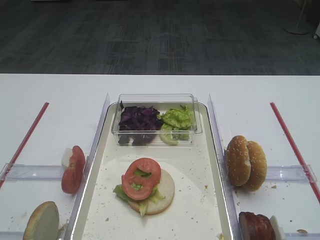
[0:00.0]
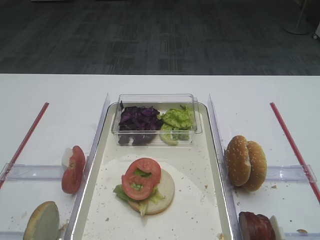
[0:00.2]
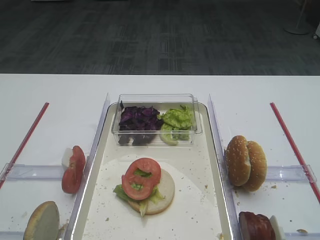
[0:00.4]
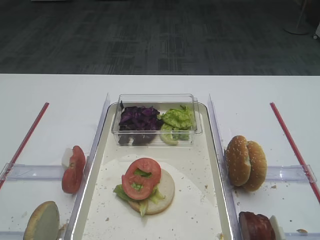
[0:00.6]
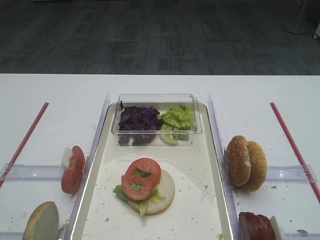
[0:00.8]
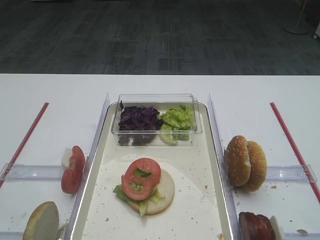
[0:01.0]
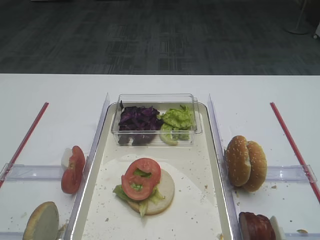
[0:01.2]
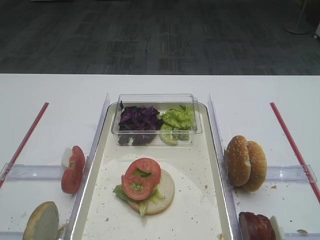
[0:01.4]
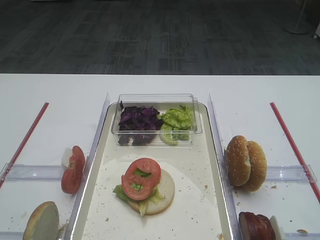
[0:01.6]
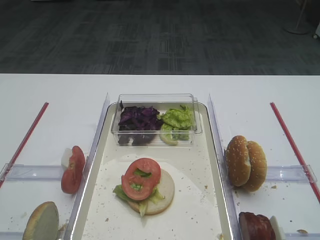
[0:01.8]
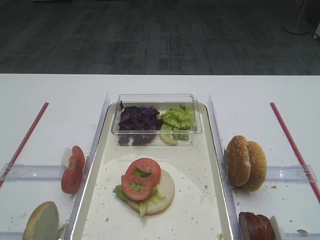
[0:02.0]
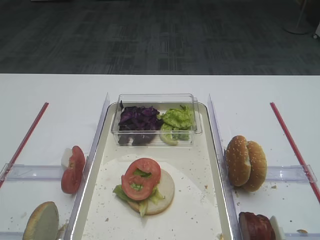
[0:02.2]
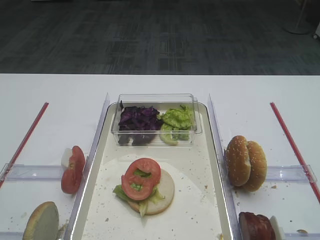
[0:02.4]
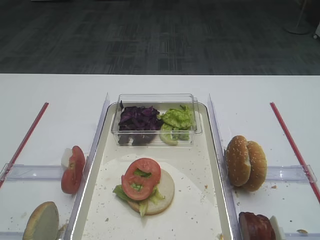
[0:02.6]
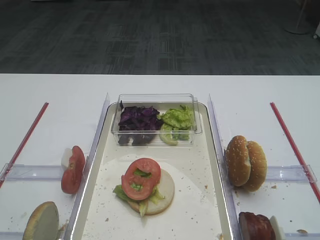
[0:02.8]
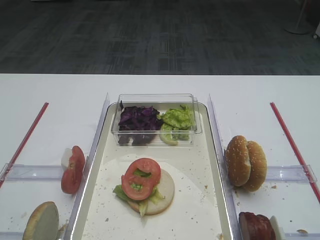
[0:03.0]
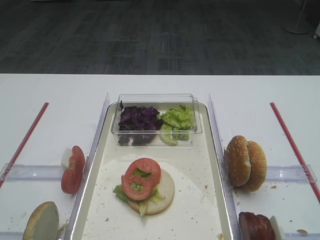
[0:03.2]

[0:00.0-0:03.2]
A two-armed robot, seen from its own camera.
0:00.0 to 0:03.2: Neither gripper changes place.

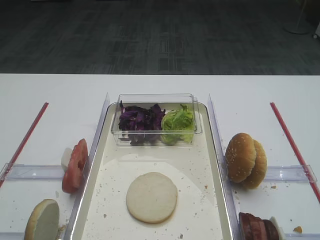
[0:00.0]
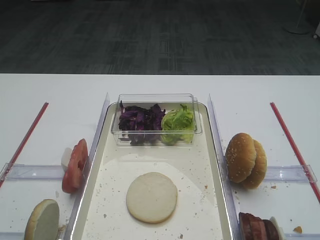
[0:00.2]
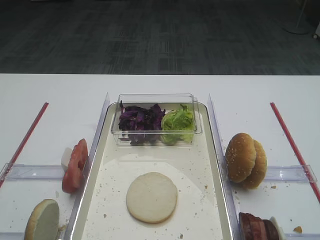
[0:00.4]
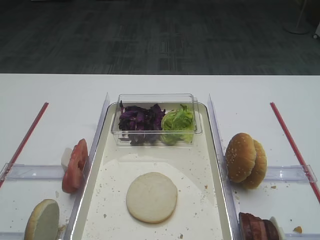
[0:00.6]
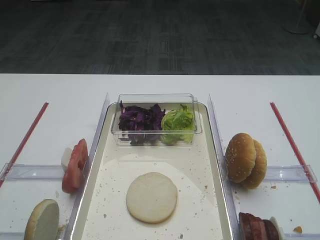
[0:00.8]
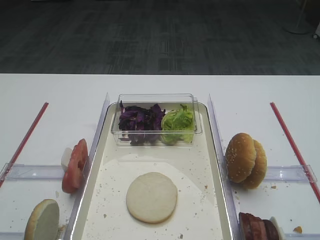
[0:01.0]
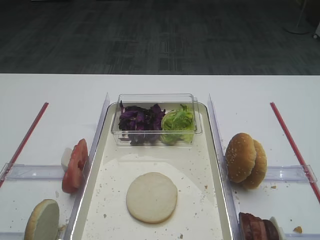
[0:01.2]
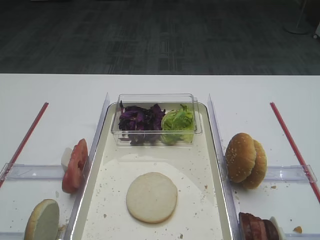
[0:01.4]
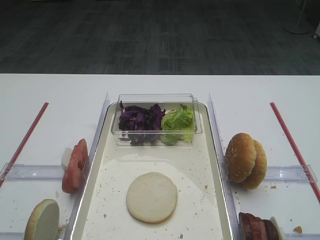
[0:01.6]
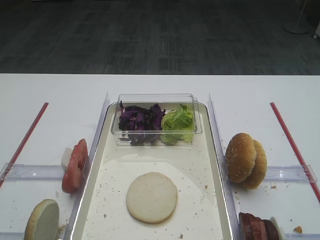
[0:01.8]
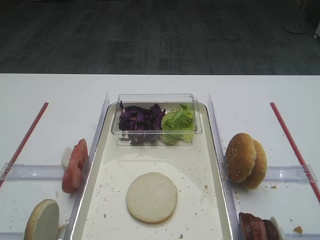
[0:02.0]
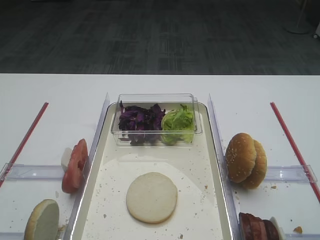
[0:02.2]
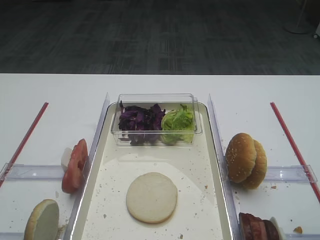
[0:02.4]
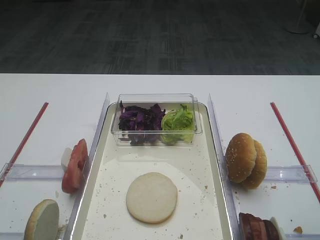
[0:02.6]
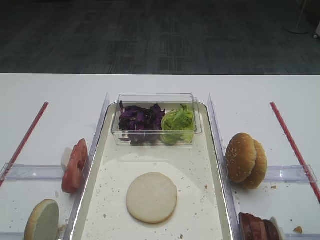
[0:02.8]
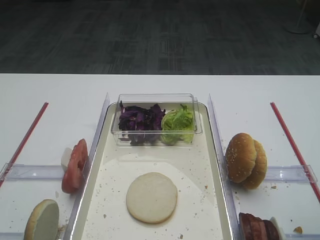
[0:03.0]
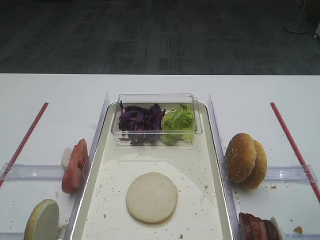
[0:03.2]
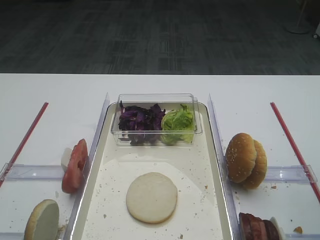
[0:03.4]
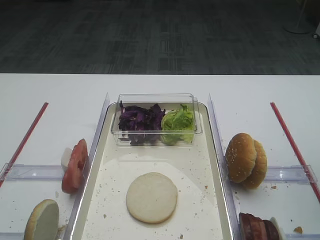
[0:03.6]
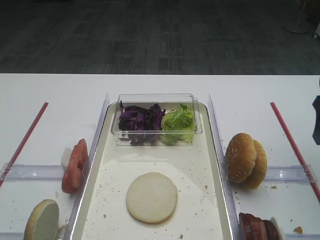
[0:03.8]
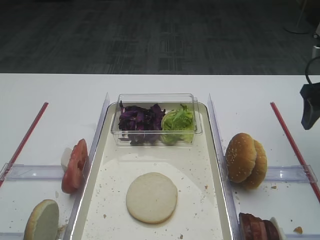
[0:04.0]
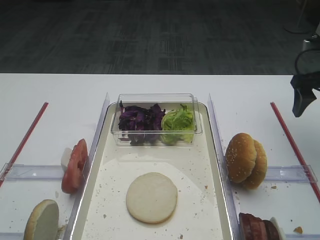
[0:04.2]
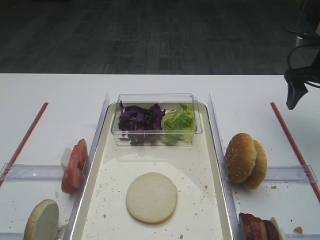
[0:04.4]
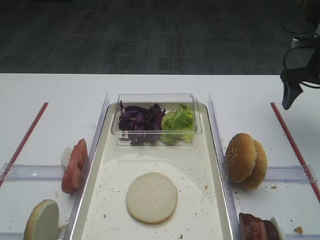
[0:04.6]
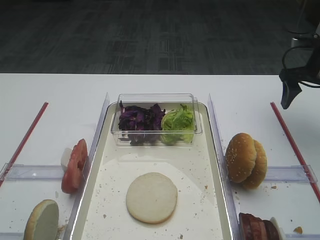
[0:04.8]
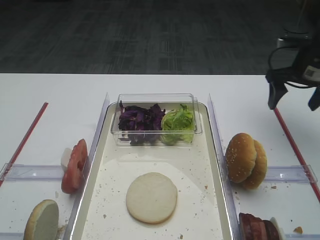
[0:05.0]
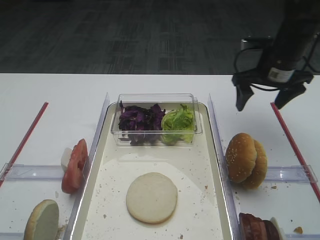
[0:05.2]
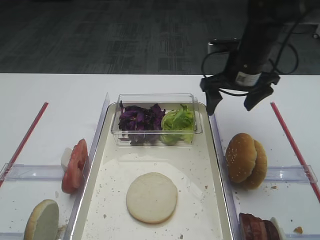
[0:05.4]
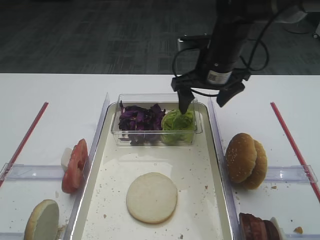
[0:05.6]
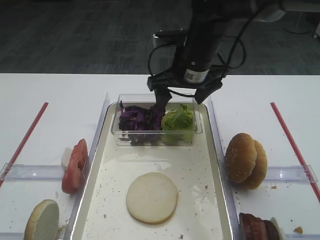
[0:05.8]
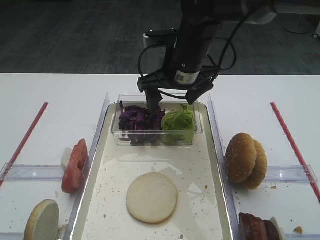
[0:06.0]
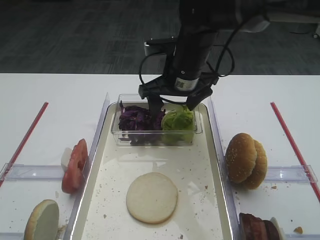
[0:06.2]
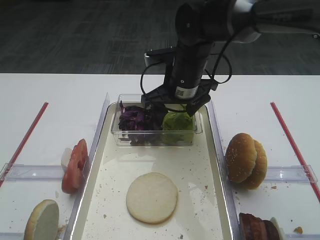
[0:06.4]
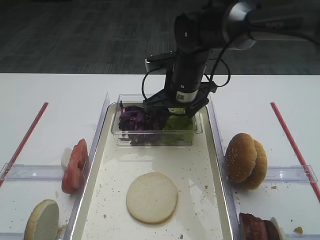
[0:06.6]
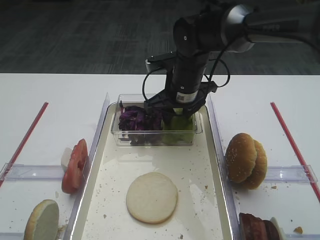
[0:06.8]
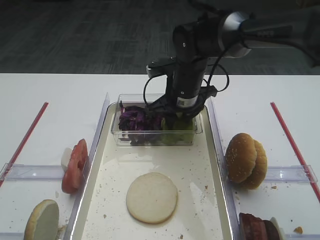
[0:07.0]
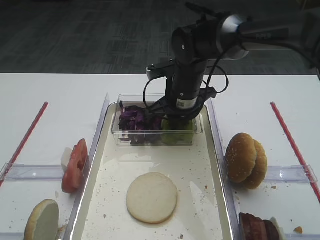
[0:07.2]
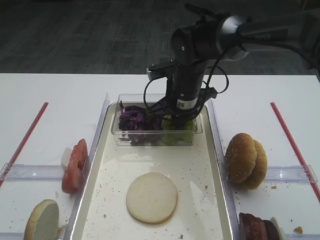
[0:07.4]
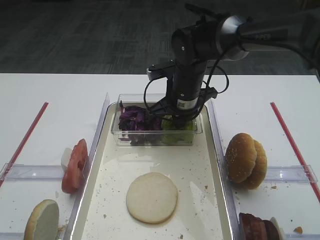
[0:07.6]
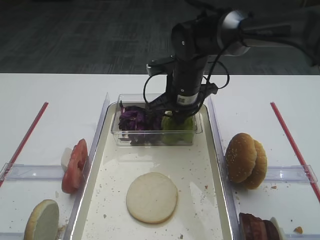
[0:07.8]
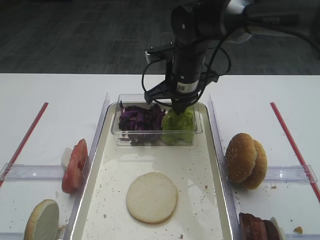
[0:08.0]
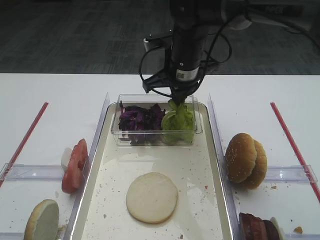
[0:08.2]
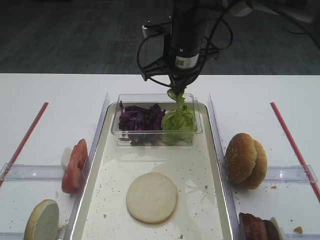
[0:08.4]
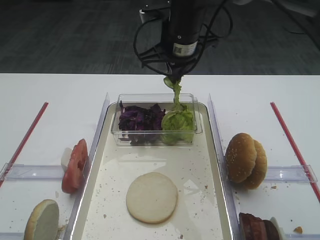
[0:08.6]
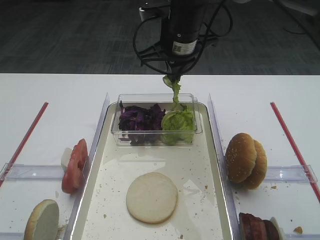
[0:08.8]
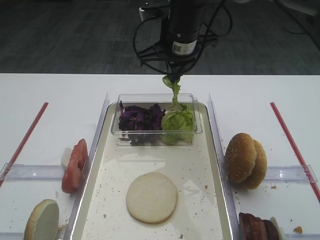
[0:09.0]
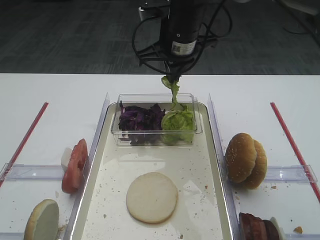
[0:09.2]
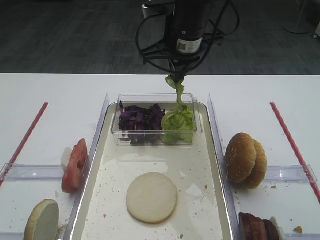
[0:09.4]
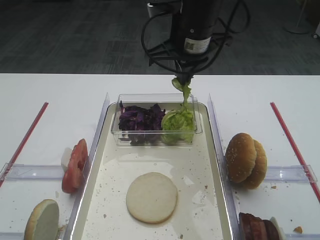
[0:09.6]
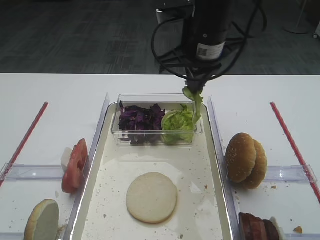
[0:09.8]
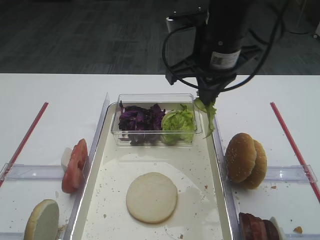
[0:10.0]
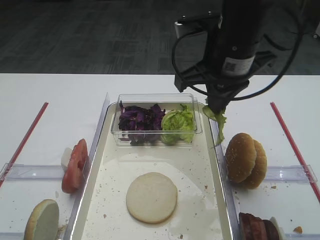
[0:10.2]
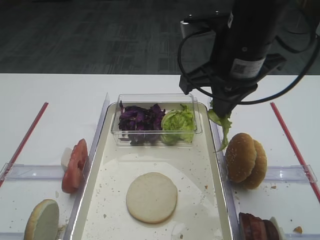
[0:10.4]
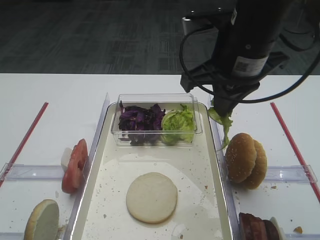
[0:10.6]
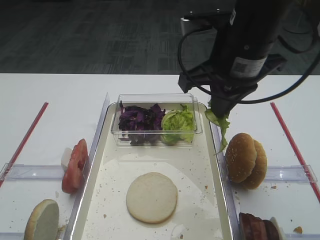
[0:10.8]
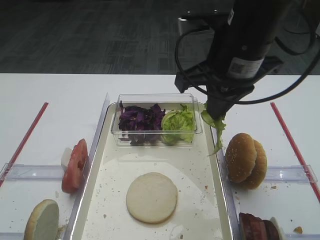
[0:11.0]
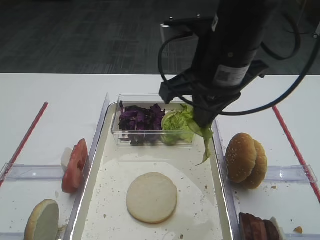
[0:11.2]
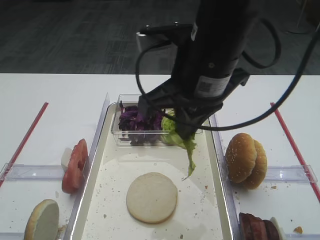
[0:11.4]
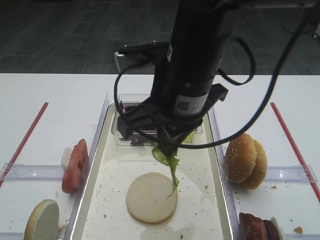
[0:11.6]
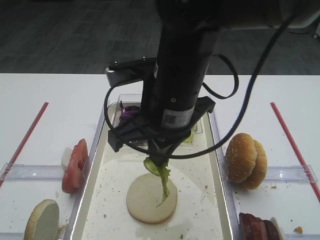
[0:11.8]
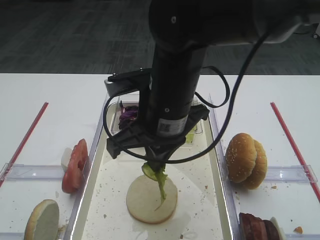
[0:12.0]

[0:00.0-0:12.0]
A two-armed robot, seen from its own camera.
Step, 0:00.0 to 0:09.4: Pick up the lettuce leaf with the right gripper.
0:03.0 to 0:04.4: The right gripper shifts some 25 cm forward.
0:04.4 to 0:06.0: The right gripper goes about 30 cm to the left.
0:06.0 to 0:07.6: The right gripper travels downward by about 5 cm, and closes up.
0:07.6 to 0:09.0: The right gripper travels upward by about 10 cm.
0:09.0 to 0:10.4: The right gripper shifts some 15 cm backward and to the right.
0:10.4 to 0:12.0: The right gripper heads to the left and downward, covering about 10 cm.

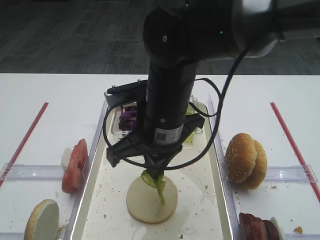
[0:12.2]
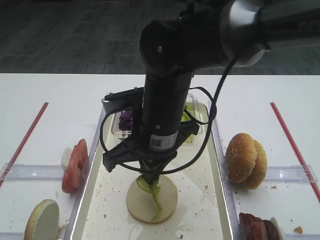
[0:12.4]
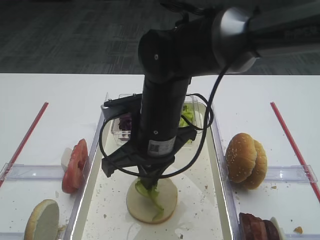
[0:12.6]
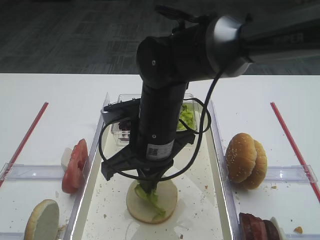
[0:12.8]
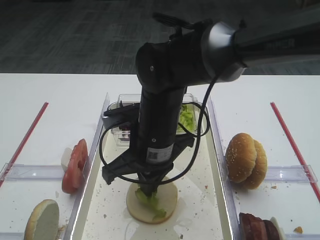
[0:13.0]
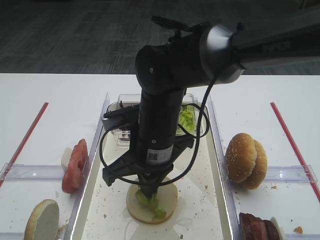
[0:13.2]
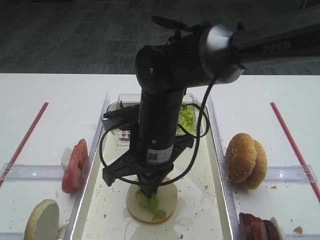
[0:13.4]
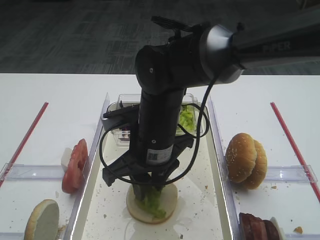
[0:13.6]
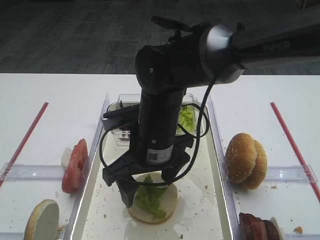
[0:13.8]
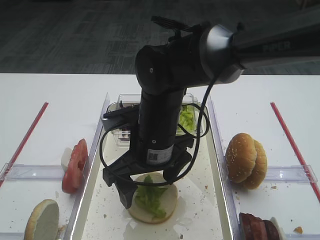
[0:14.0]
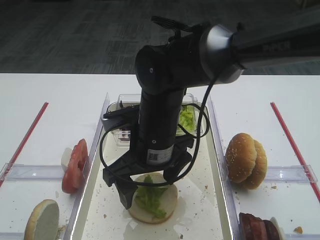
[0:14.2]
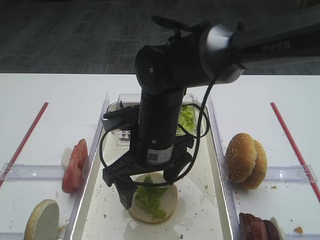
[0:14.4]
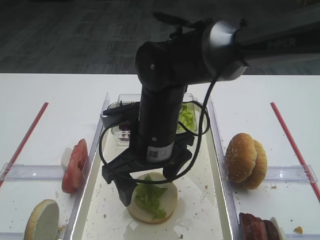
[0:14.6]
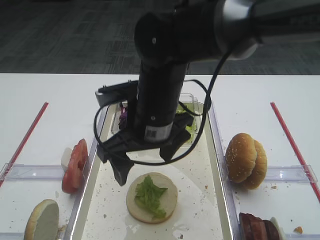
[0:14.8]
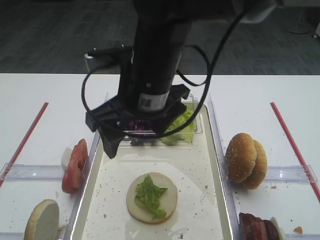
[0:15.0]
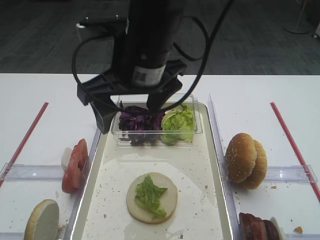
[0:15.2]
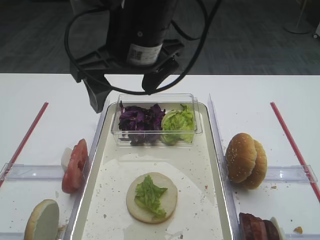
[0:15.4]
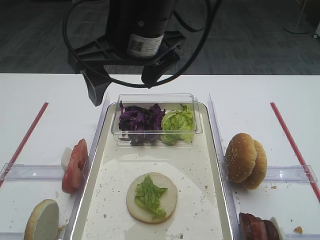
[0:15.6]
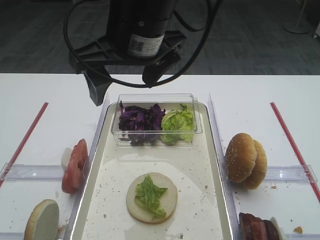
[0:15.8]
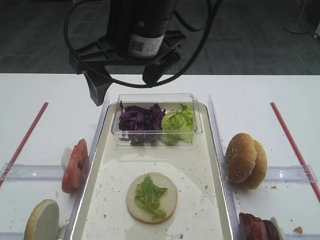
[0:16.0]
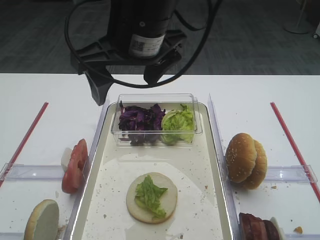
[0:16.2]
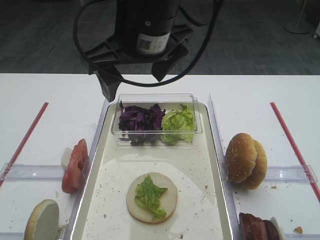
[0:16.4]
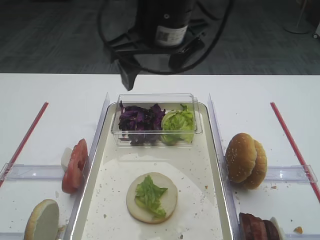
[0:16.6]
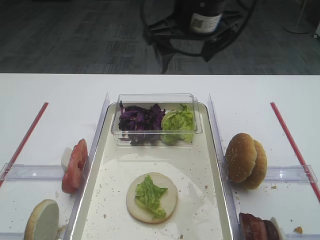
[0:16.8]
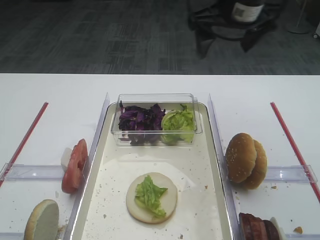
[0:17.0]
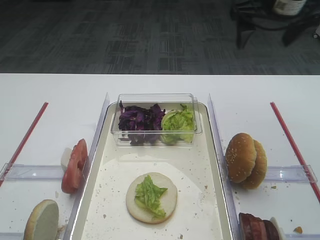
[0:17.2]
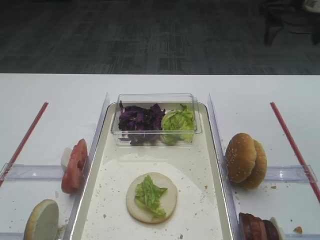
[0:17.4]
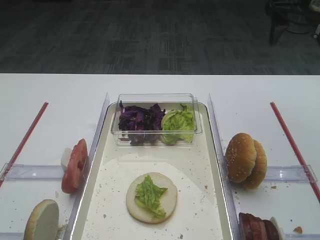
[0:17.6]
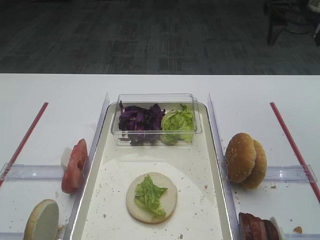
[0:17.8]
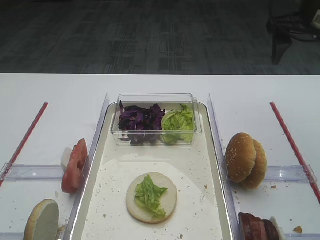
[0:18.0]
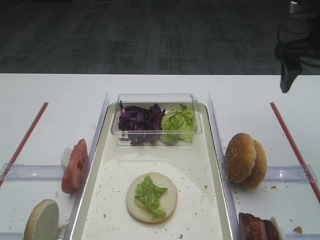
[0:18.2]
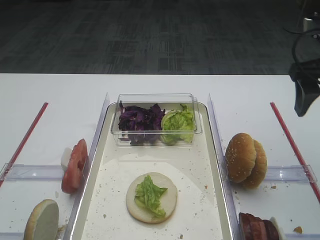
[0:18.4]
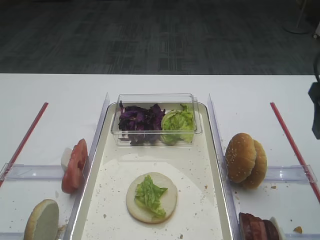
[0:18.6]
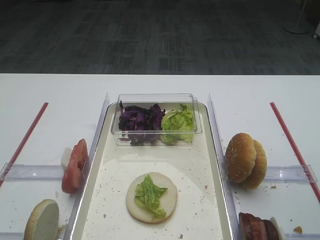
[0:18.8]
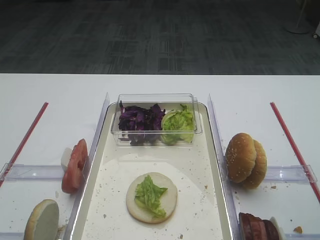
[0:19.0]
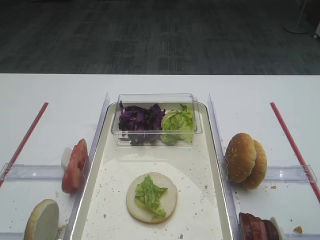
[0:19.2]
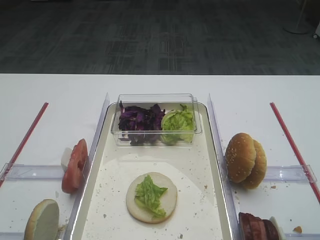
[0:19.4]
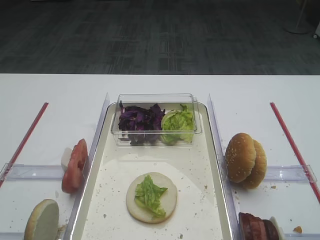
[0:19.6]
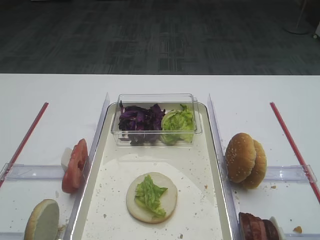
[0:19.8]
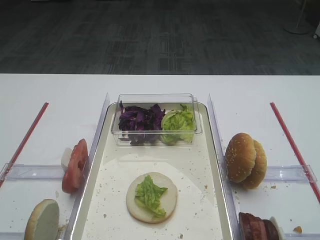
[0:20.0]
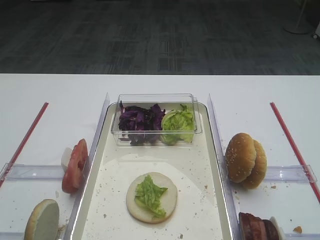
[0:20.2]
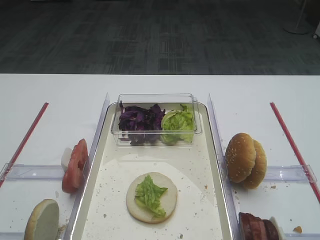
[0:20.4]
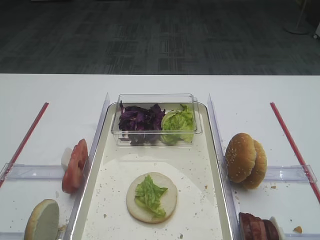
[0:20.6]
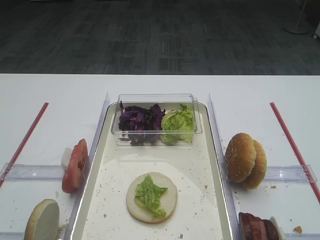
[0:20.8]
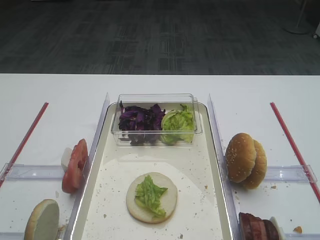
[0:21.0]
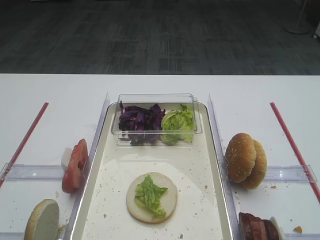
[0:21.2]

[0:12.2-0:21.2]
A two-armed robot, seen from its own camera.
Step, 0:12.2 to 0:15.2: Place the lettuce leaf on the bread slice with the right gripper.
0:12.2 to 0:13.8: The right gripper moves about 5 cm, and opens its fingers.
0:13.8 to 0:15.2: The right gripper moves upward, approximately 10 cm.
0:15.2 to 0:16.6: The right gripper changes place by about 5 cm.
0:16.6 to 0:18.2: The right gripper travels to the right by some 25 cm.
0:18.2 to 0:19.8: The right gripper travels backward by some 30 cm.
